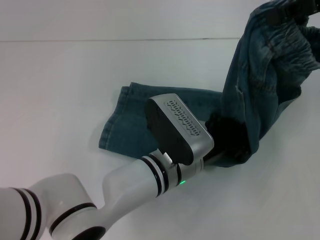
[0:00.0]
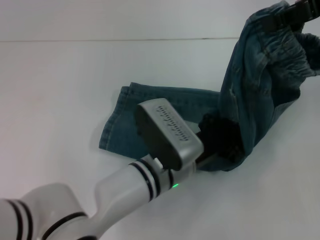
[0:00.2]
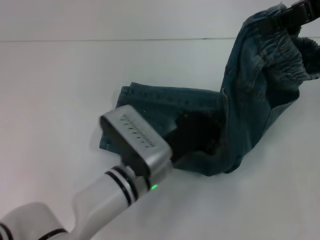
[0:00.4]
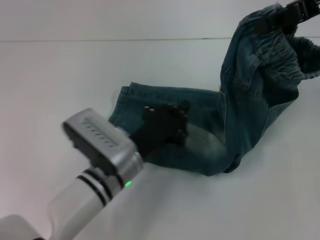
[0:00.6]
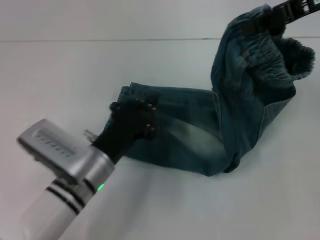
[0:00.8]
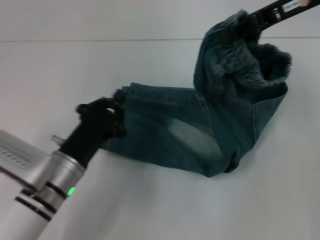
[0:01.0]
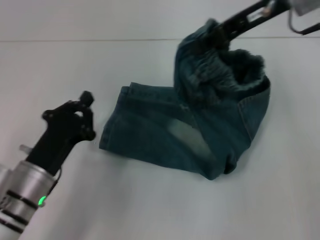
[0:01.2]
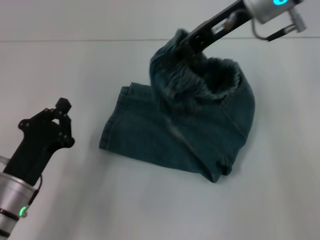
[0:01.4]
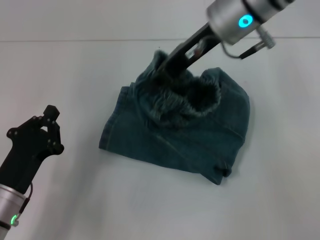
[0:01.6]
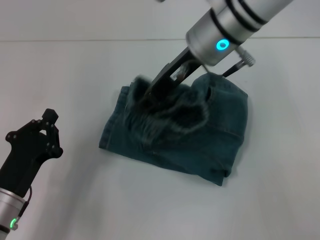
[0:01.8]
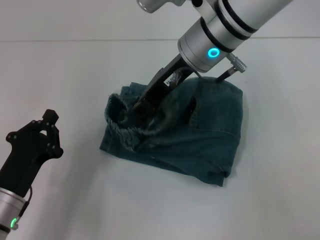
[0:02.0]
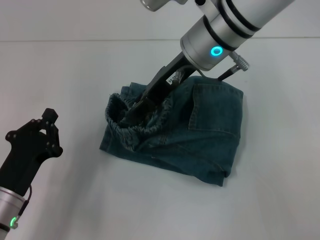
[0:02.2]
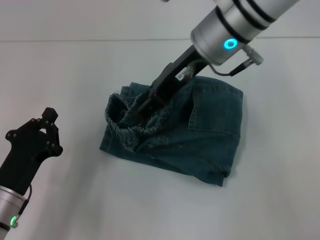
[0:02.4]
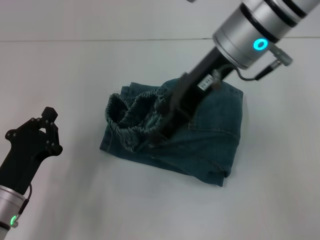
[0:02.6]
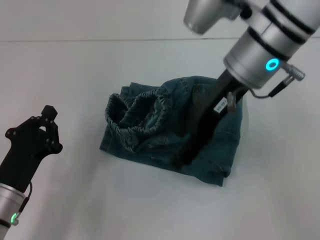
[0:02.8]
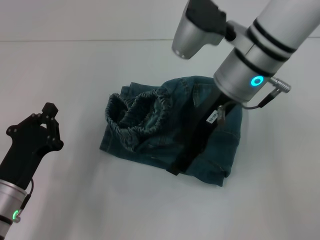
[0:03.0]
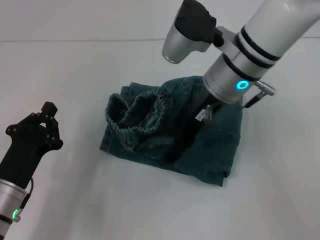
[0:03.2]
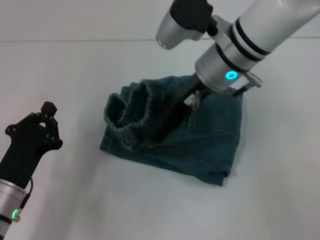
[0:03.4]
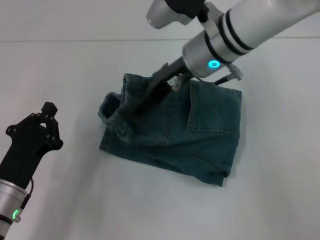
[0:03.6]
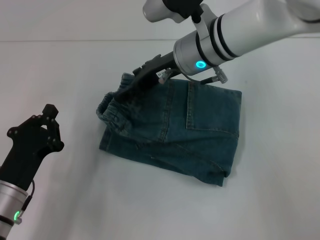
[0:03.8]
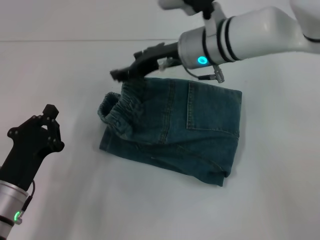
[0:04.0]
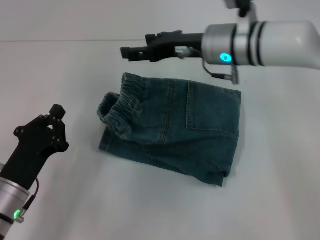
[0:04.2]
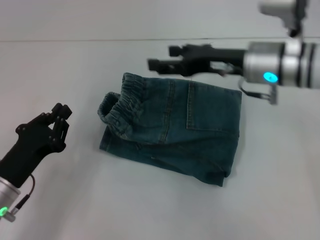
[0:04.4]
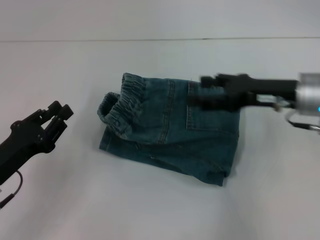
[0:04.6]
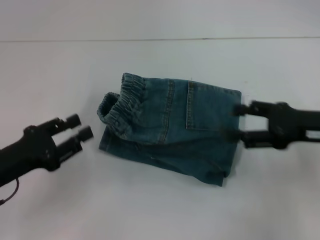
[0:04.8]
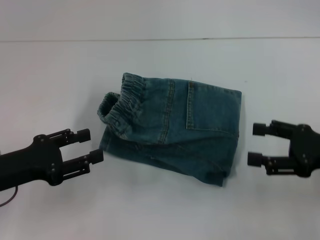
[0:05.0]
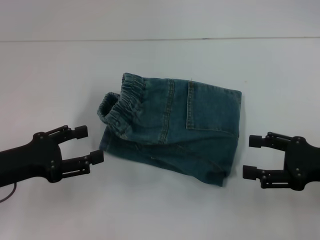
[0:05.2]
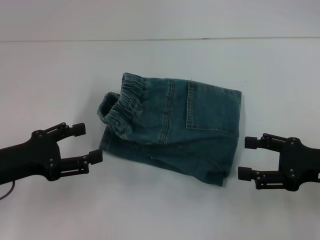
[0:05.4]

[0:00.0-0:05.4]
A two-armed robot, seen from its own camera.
Step, 0:00.2 to 0:03.8: Fold to the left with your right hand.
0:00.0 to 0:01.4: The grippers both shift to the left by about 20 cm.
0:01.4 to 0:02.8: The right gripper shifts about 5 cm backward, and opens.
0:02.8 to 0:04.0: The right gripper moves downward and forward, approximately 10 cm.
0:04.0 to 0:05.4: The right gripper shifts roughly 30 cm to the right and backward. The left gripper shifts roughly 10 cm upward and to the left, and opens up.

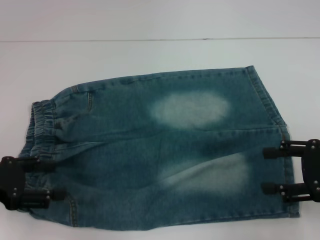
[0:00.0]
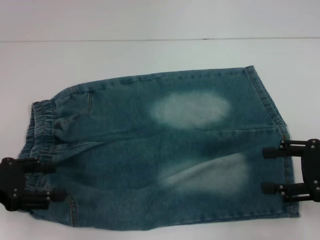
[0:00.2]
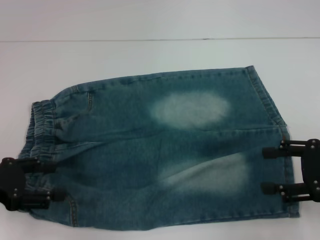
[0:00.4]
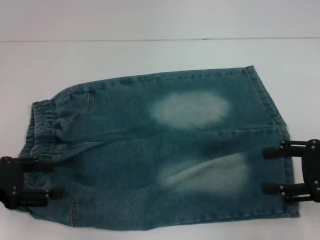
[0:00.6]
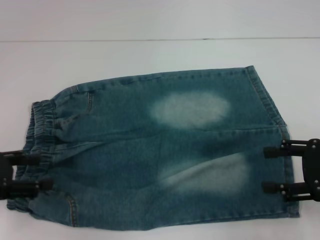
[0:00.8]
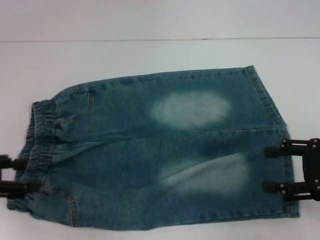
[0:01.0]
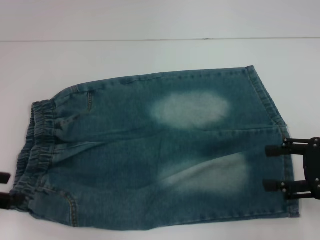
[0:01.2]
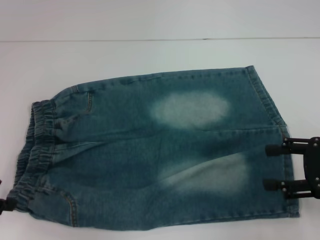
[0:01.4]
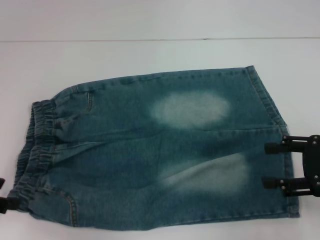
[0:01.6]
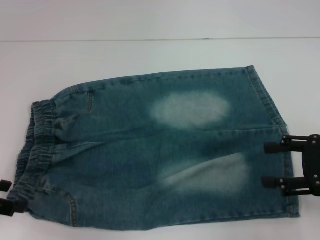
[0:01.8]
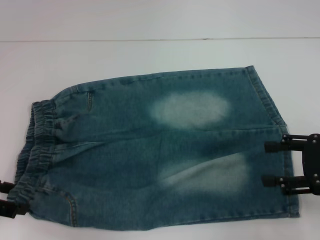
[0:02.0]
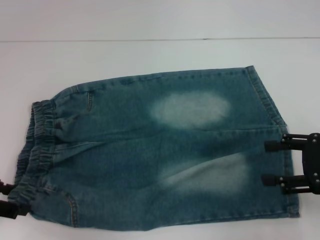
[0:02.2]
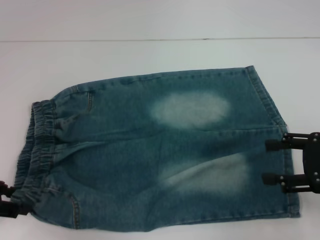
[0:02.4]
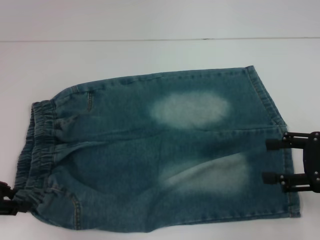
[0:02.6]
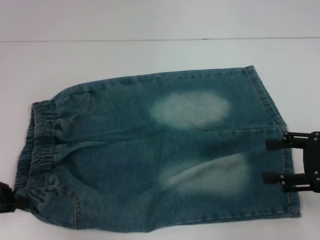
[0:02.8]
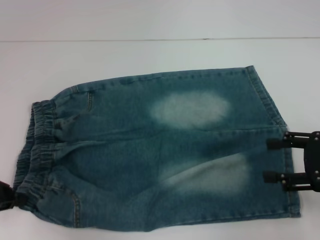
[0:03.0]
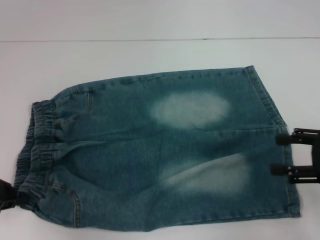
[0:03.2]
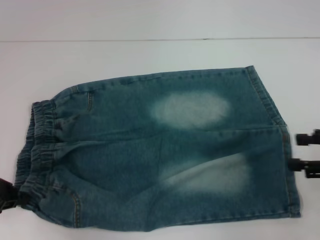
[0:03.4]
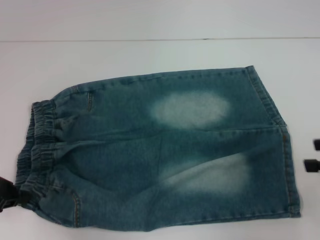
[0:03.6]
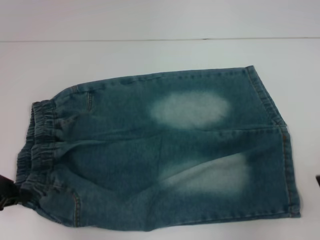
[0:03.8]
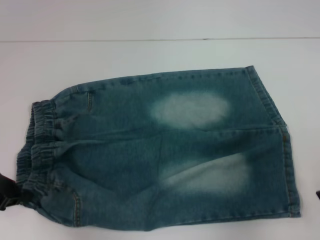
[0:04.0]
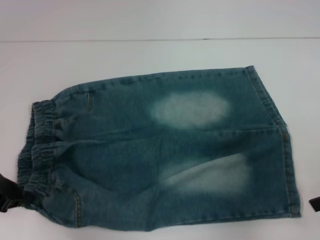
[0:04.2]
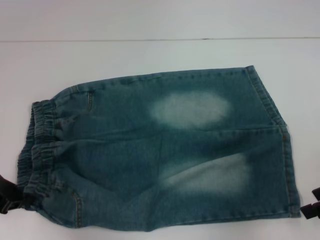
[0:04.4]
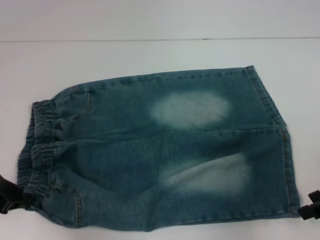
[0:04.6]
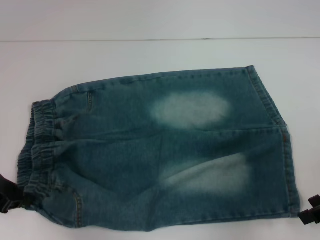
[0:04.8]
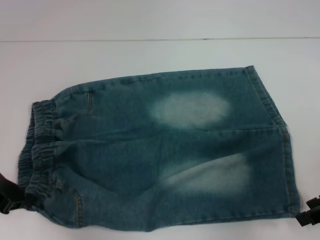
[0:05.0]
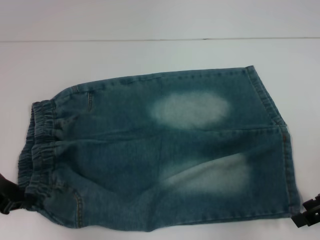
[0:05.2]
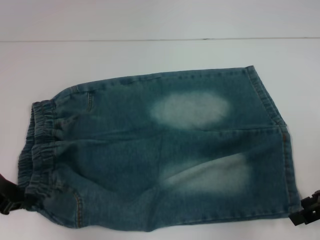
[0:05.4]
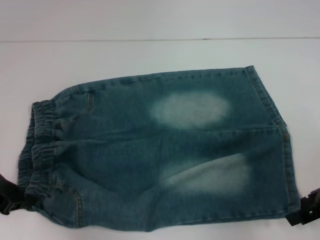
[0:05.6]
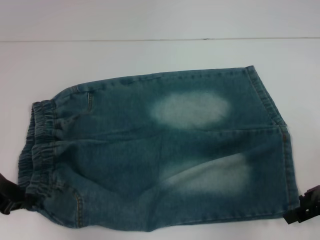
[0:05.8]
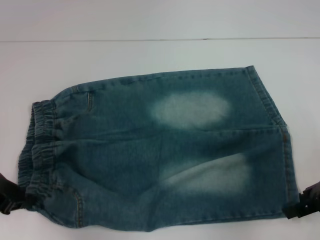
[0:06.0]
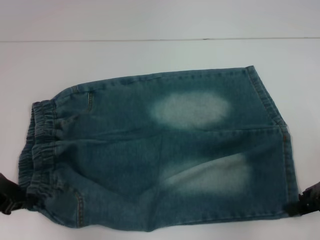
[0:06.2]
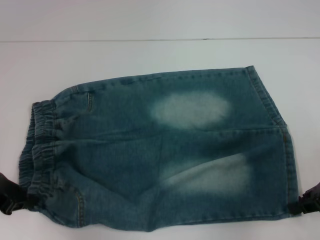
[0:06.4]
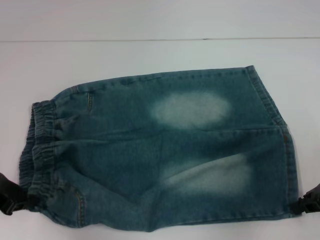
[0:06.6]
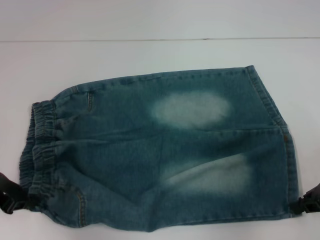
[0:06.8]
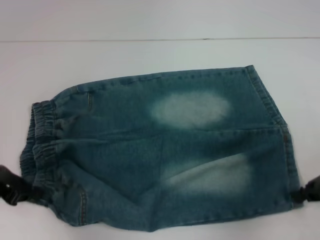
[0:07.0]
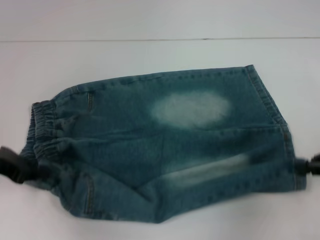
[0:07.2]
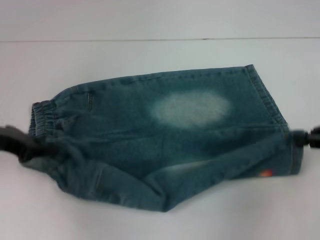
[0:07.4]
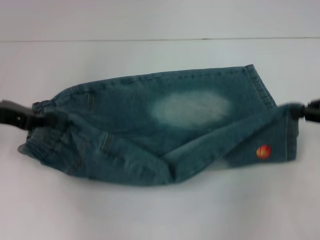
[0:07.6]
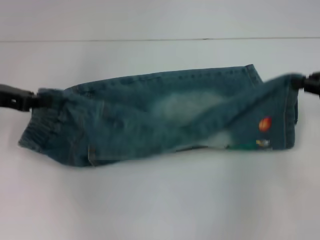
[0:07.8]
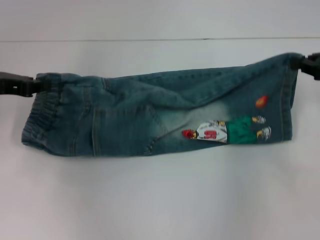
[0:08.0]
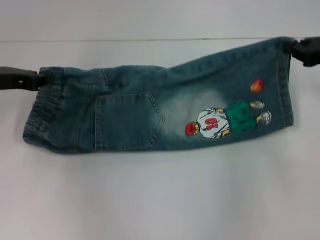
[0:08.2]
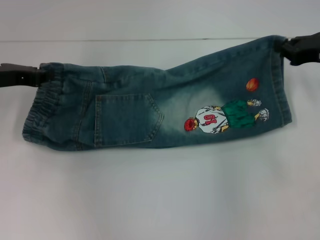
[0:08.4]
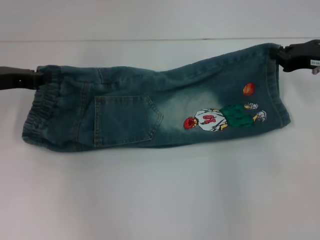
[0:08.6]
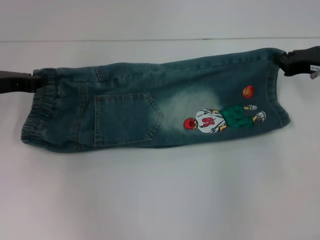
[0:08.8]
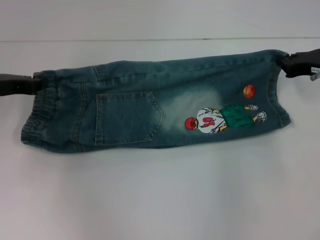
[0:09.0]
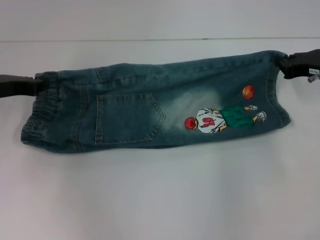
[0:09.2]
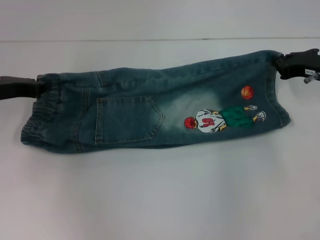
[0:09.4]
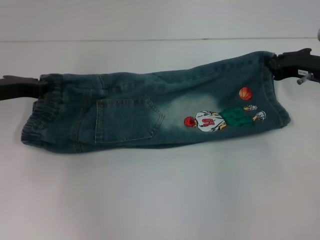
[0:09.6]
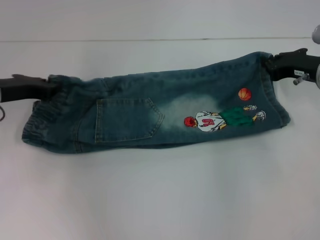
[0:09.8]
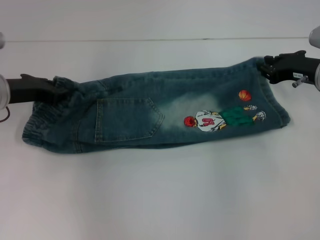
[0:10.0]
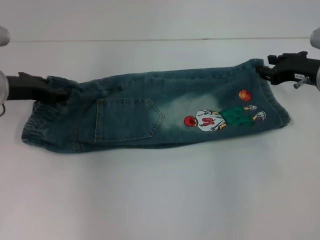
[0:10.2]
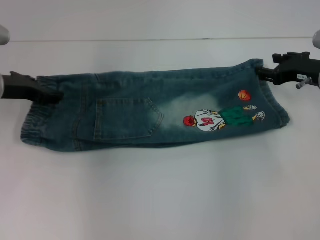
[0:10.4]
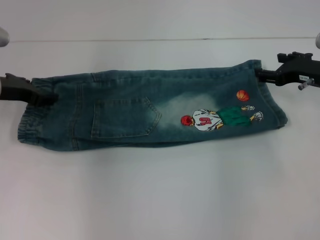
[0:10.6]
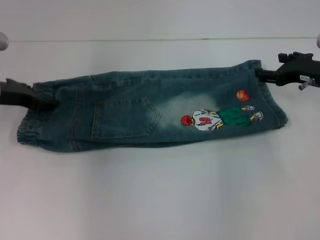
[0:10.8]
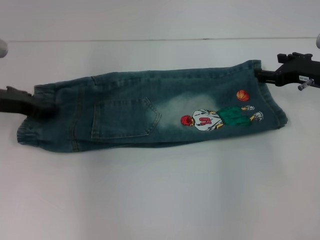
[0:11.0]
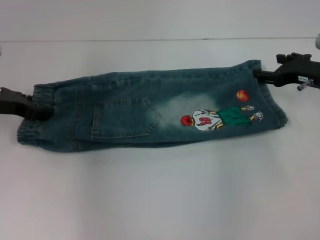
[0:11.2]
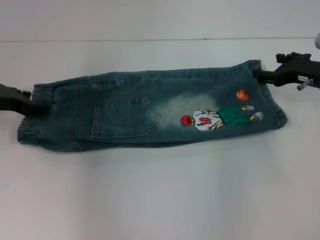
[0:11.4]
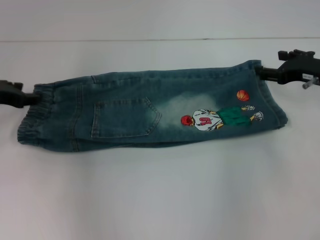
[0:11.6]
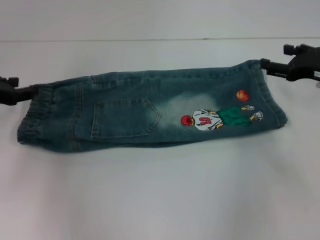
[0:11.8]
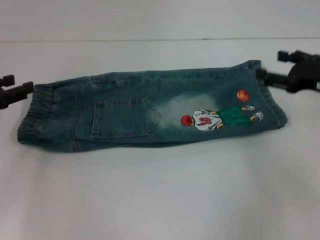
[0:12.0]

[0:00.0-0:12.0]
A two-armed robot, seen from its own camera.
Step, 0:00.0 to 0:03.0: Hold the lower left waistband with your left hand.
Step, 0:03.2 to 0:06.8: Grab the lower right pant leg with your right hand.
Step, 0:07.0 to 0:11.4: Fold upward with your right hand.
0:01.6 to 0:03.0: The left gripper closes up.
0:04.4 to 0:06.0: The grippers move only a little.
0:06.0 to 0:07.6: The right gripper changes place by about 5 cm, and closes up; the left gripper travels upward and forward by some 10 cm.
0:07.6 to 0:09.0: The right gripper is displaced forward by roughly 10 cm.
0:09.0 to 0:10.4: The right gripper opens up. The left gripper opens up.
0:10.4 to 0:12.0: The right gripper goes some 5 cm backward, and opens; the left gripper goes about 10 cm backward and to the left.

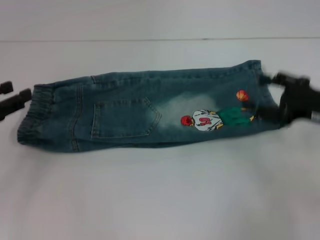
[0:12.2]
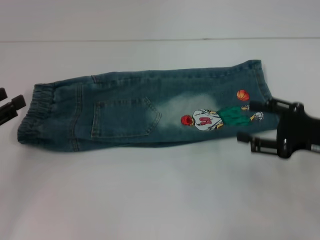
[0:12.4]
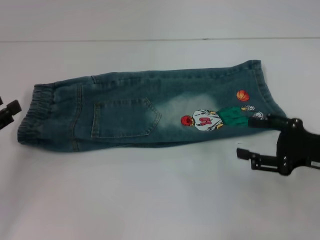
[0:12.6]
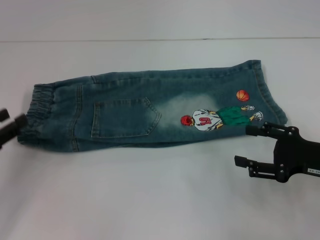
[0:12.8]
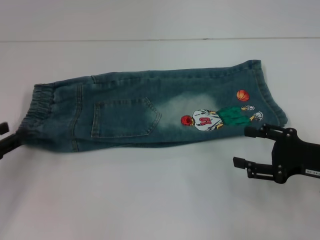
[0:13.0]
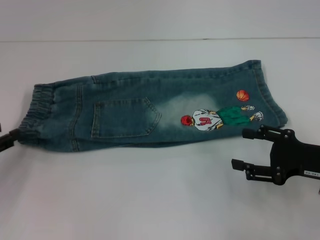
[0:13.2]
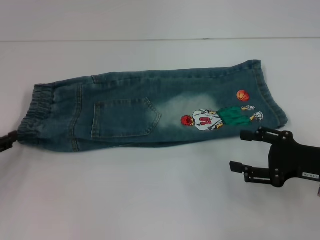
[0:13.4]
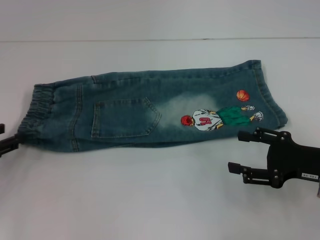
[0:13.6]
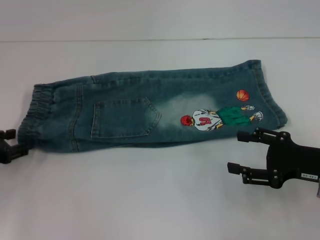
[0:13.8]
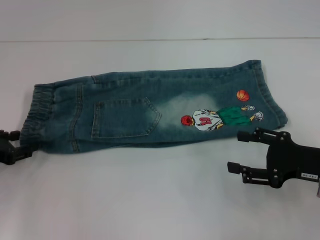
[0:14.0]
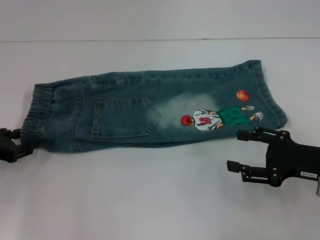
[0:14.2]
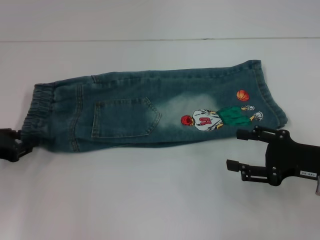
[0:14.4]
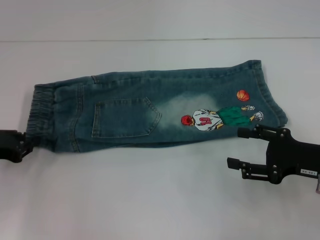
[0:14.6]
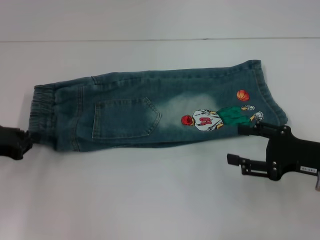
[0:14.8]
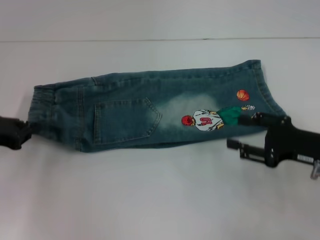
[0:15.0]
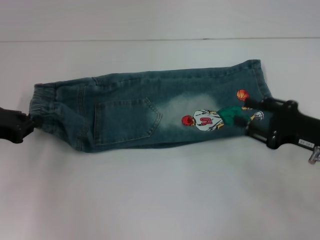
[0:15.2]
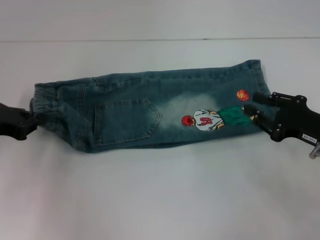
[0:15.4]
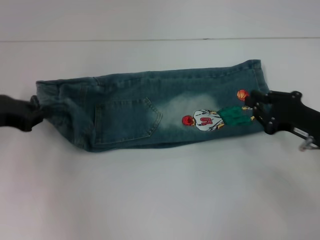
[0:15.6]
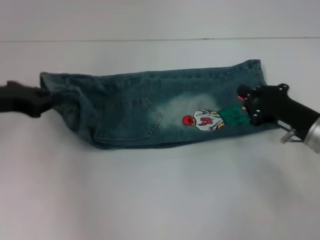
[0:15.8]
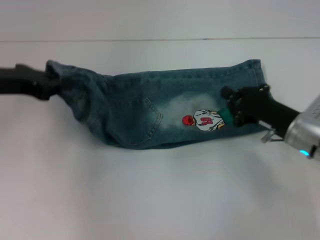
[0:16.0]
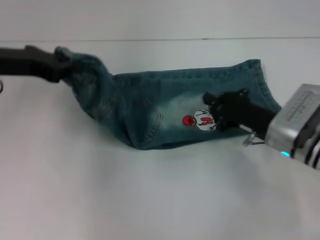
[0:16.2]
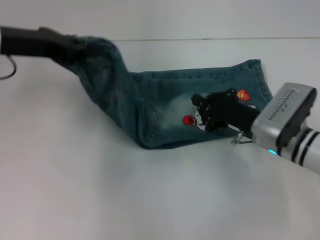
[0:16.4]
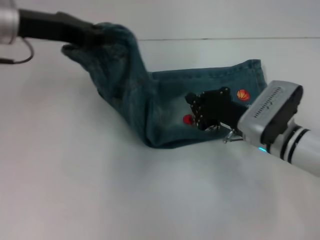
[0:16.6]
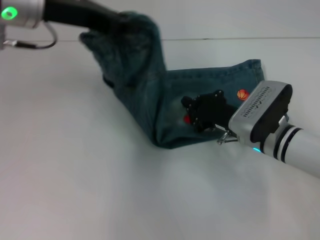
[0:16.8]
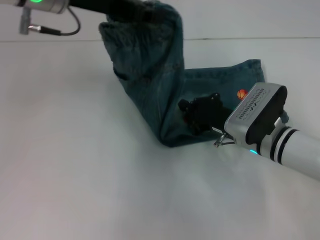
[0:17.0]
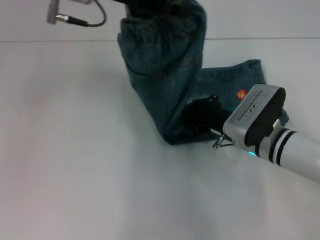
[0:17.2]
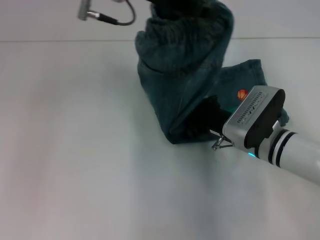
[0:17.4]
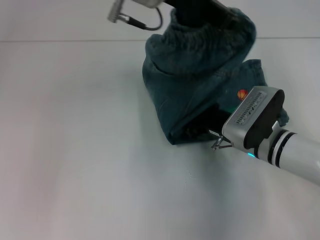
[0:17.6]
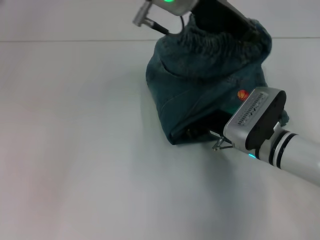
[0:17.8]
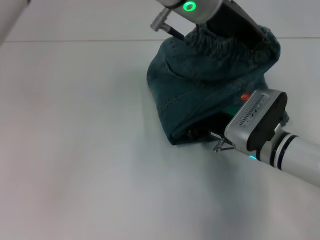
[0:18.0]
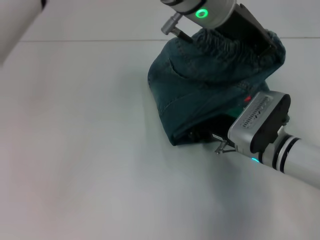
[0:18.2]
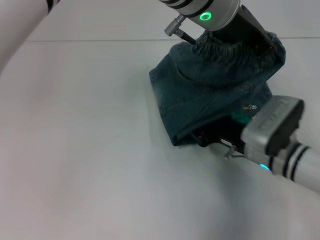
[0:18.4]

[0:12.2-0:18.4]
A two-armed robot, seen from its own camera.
Step, 0:12.2 to 0:14.8: Hold the waistband with your left hand.
0:12.2 to 0:13.8: The right gripper travels backward by approximately 5 cm; the left gripper shifts about 5 cm downward.
0:13.8 to 0:15.4: The left gripper heads upward, covering roughly 5 cm, and closes, while the right gripper closes.
0:15.4 to 0:16.8: The left gripper is displaced upward, to the right and forward by about 20 cm. The right gripper is displaced to the left and forward by approximately 15 cm, and closes up.
0:16.8 to 0:18.4: The left gripper is displaced to the right by roughly 20 cm.
